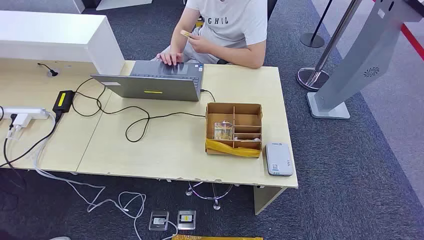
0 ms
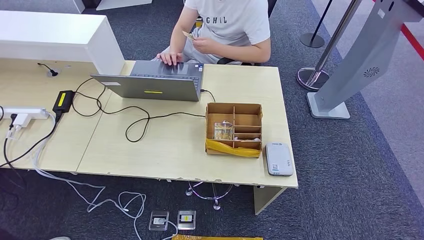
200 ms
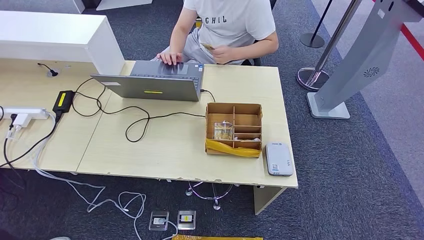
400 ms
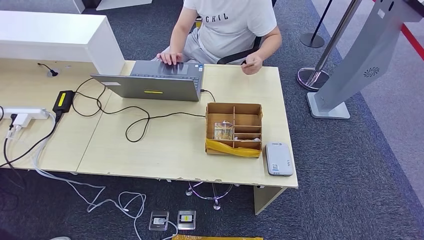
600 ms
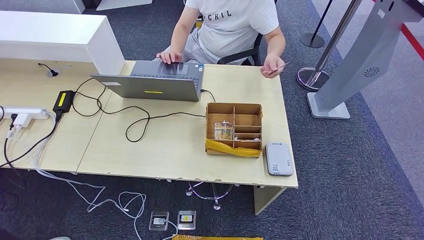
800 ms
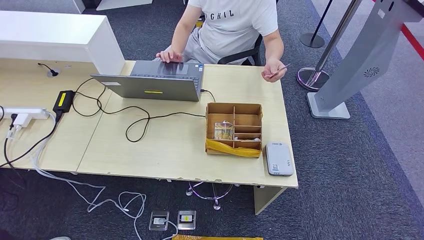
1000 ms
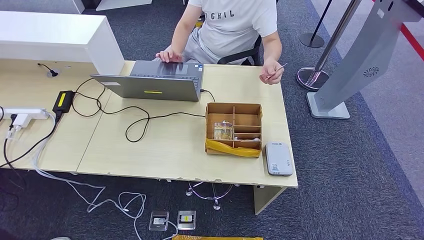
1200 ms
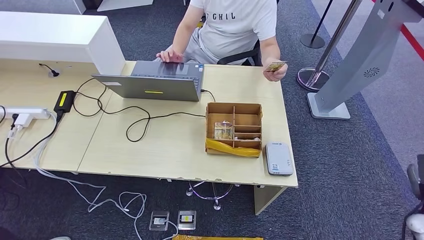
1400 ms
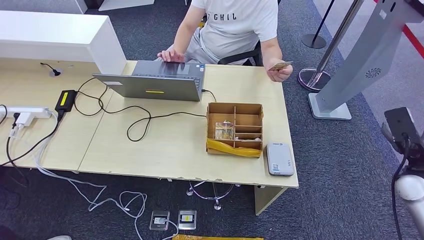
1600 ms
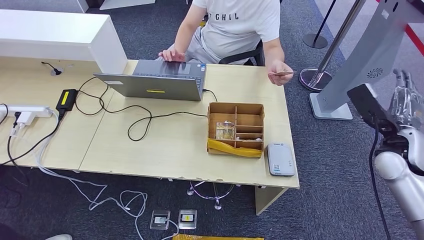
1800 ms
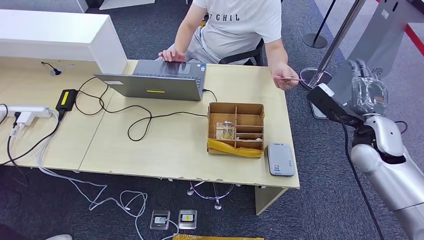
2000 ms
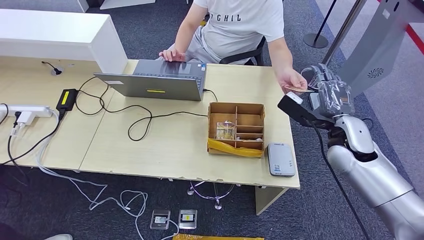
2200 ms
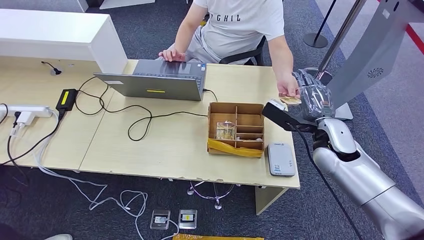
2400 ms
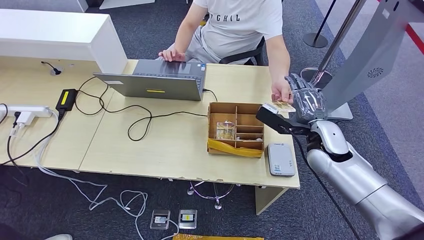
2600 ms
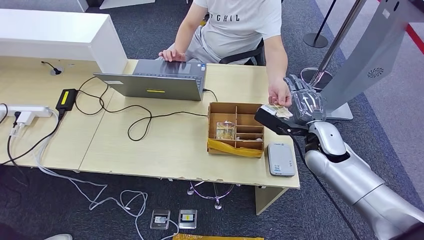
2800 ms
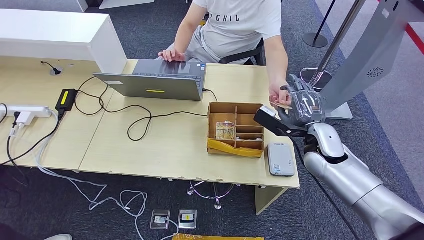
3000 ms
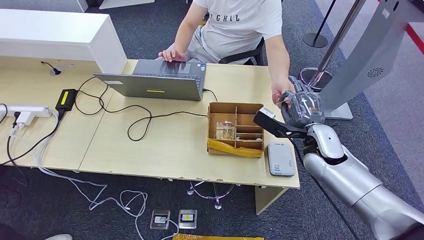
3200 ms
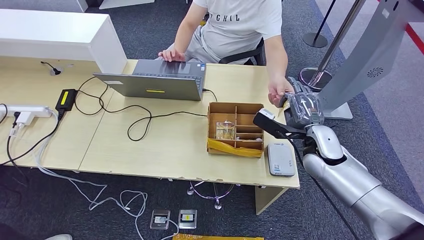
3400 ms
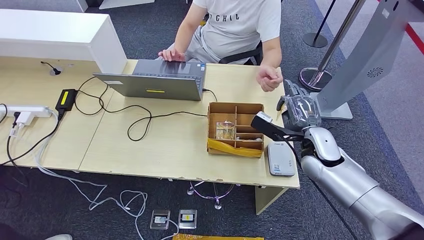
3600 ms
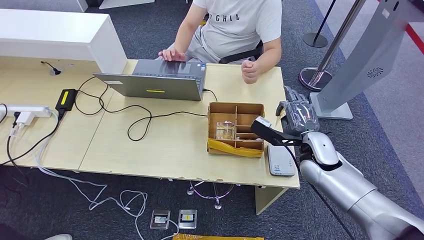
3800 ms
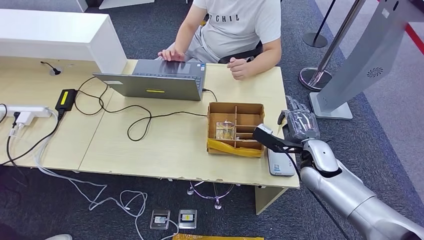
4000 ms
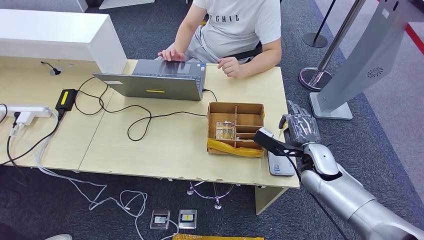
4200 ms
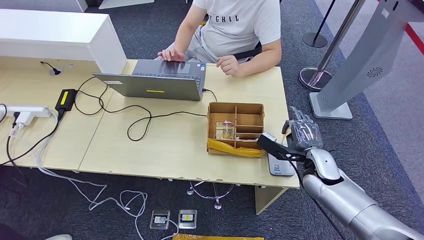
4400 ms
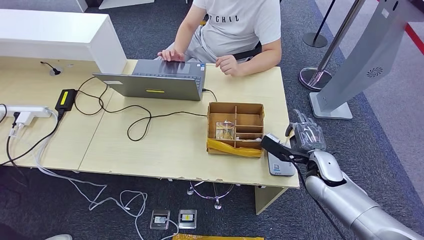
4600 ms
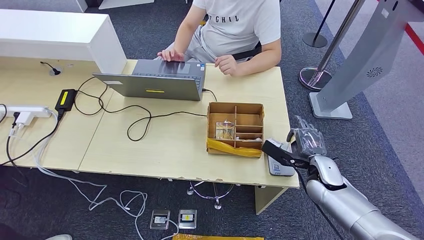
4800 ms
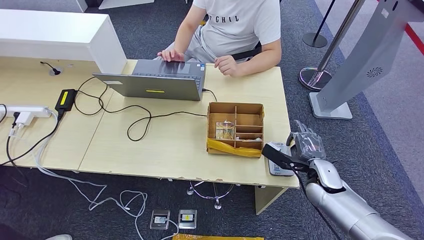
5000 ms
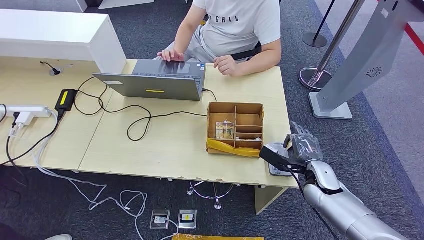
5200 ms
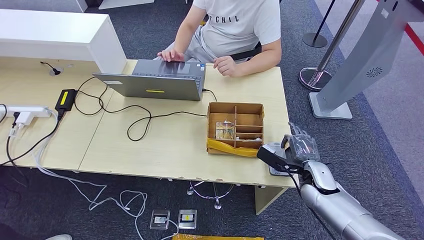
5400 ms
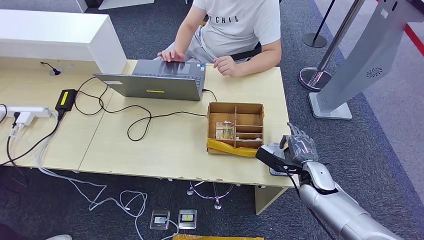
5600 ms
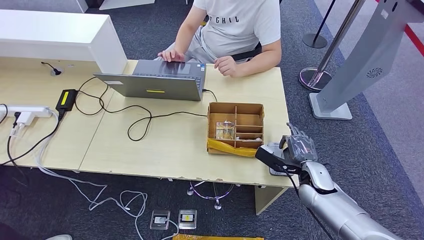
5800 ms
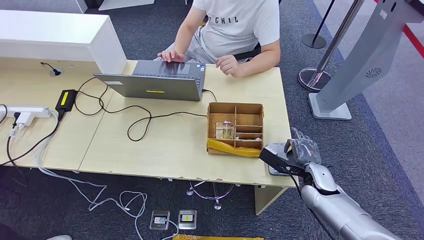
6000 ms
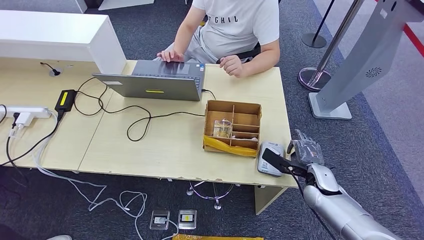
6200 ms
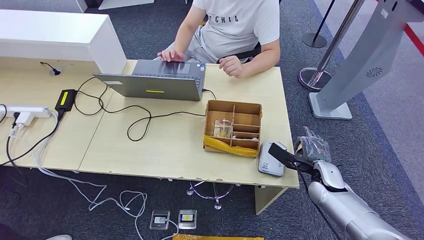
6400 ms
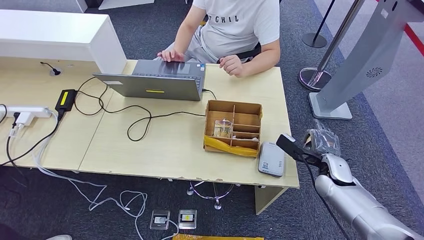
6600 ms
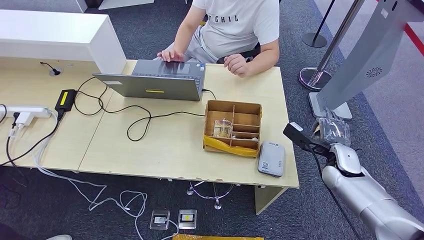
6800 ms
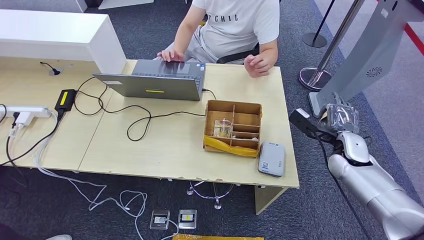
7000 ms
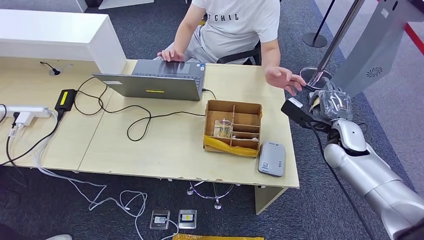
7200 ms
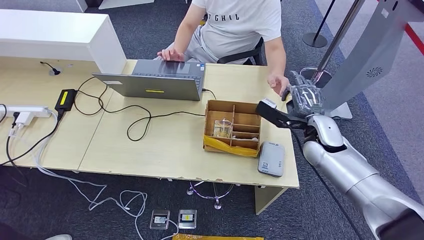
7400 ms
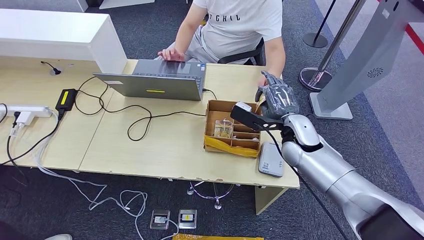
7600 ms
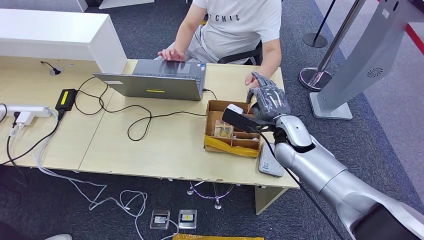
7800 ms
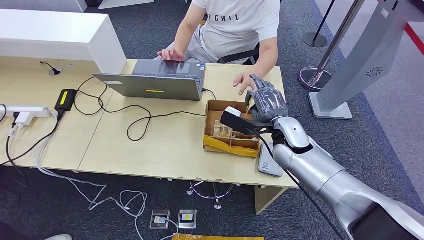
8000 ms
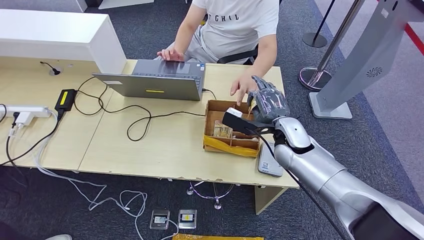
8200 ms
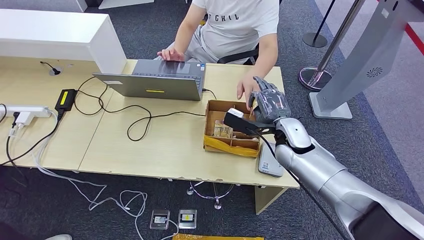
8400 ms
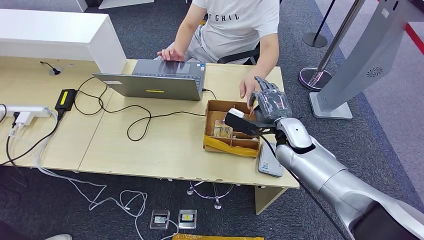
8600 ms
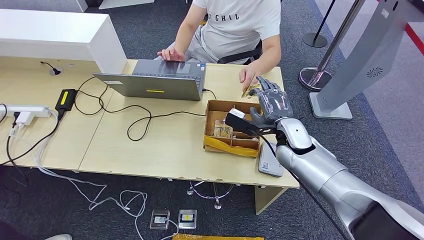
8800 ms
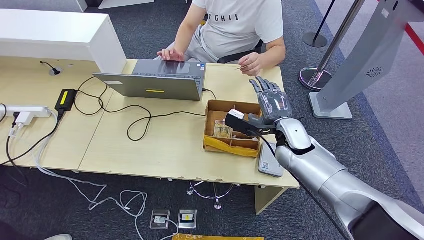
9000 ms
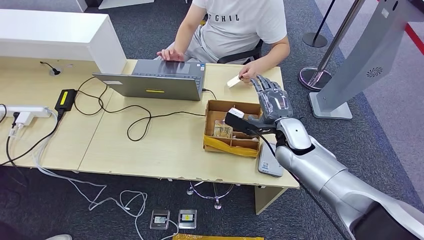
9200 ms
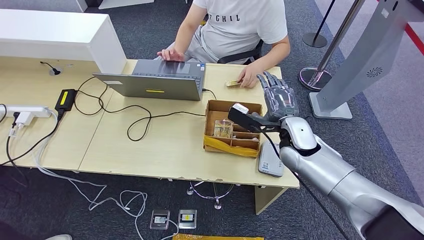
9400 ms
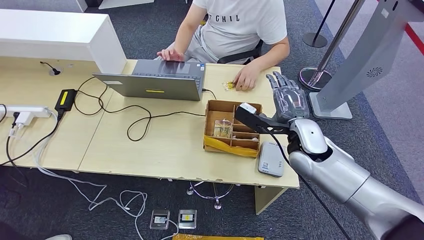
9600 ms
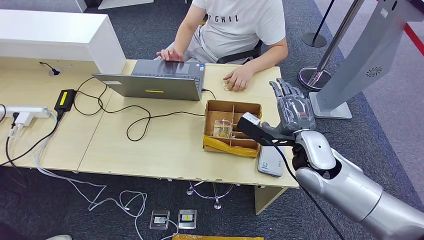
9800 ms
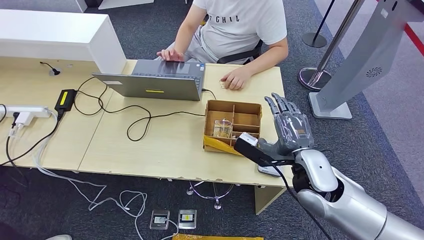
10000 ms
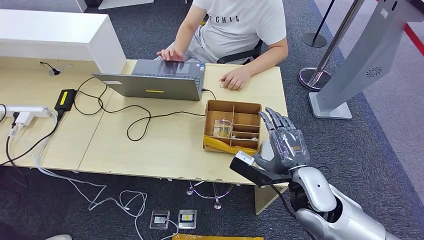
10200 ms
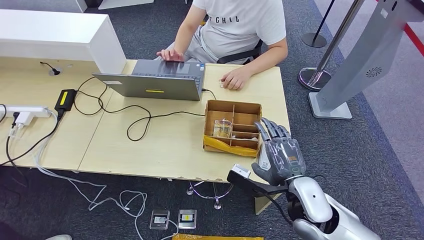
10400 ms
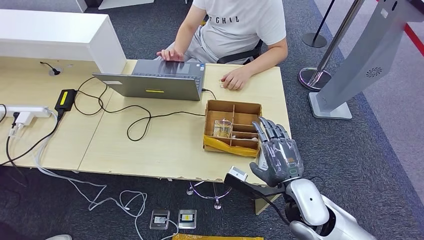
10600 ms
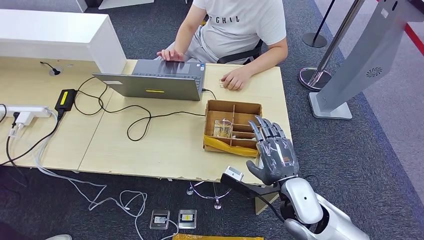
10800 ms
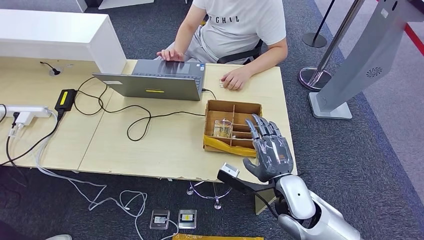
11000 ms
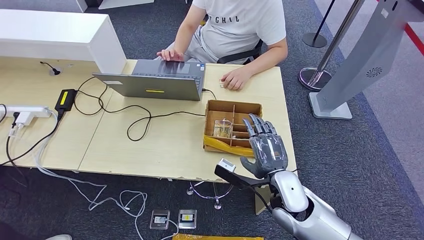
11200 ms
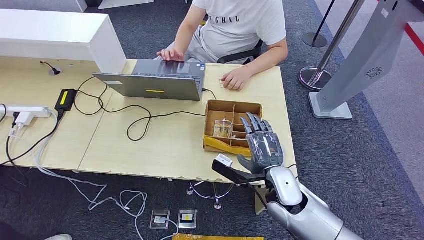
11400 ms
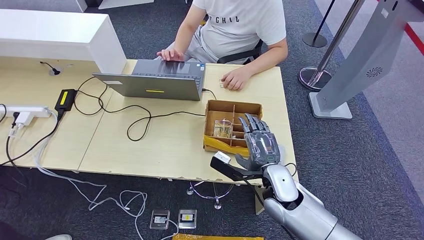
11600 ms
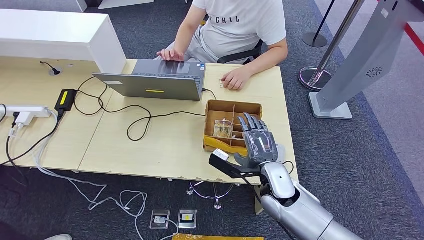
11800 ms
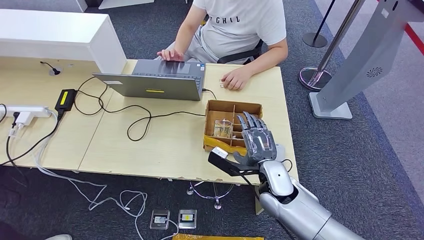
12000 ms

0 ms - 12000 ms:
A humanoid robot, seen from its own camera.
Step, 0 ms - 3800 ms: Take the ID card from the person's hand.
Step, 4000 ms - 6600 ms: Place the ID card on the card reader.
Step, 6800 ms - 8800 ms: Hand the ID card to the person.
1600 ms - 3000 ms: The right hand goes approximately 25 cm to the left.
3000 ms - 4400 ms: The right hand travels downward by about 5 cm.
4400 ms - 6000 ms: The right hand moves downward, some 5 cm.
6000 ms - 7600 ms: The right hand moves upward, to the left and forward, approximately 15 cm.
7600 ms - 9000 ms: The hands move only a little.
9000 ms - 10400 ms: The right hand moves backward, approximately 15 cm.
10400 ms - 12000 ms: The right hand shifts some 10 cm to the left and forward.

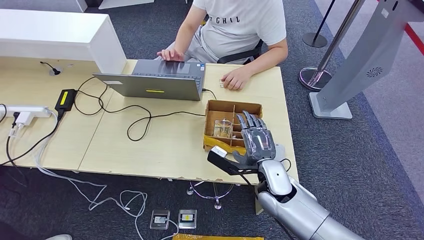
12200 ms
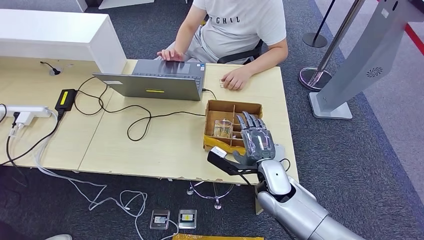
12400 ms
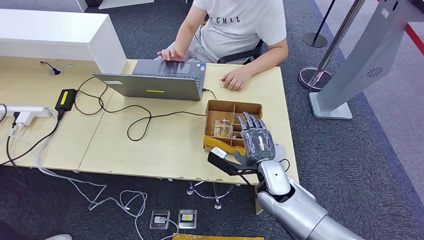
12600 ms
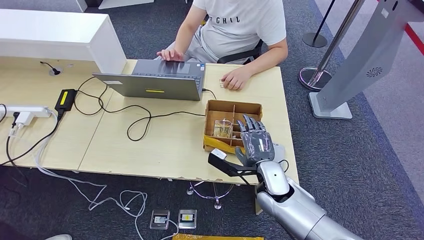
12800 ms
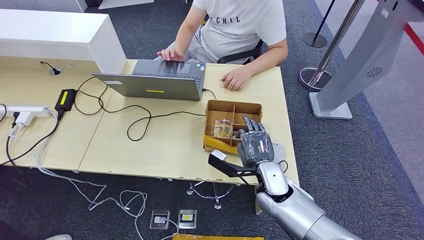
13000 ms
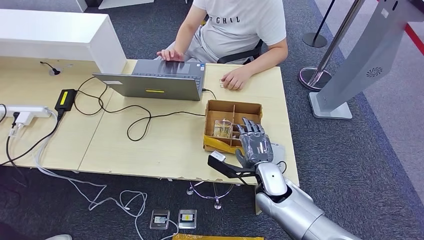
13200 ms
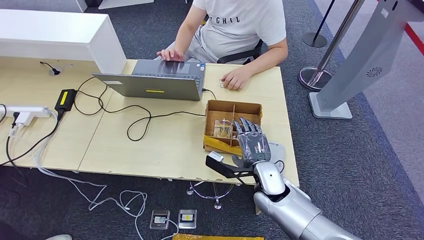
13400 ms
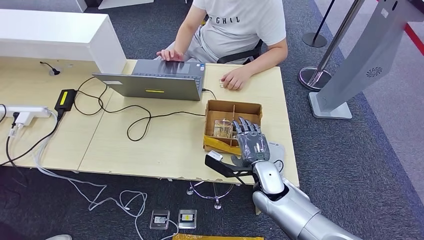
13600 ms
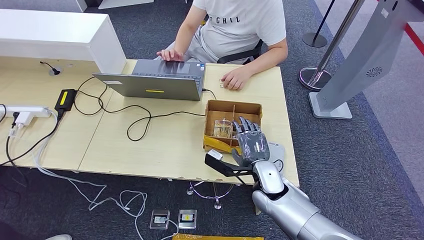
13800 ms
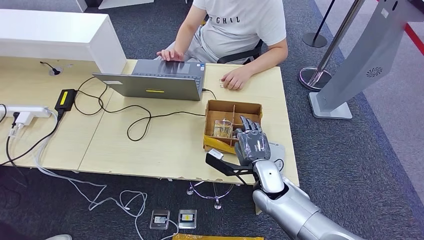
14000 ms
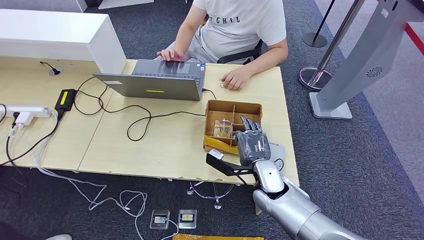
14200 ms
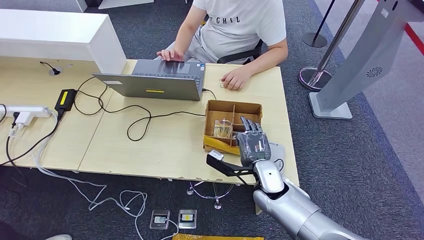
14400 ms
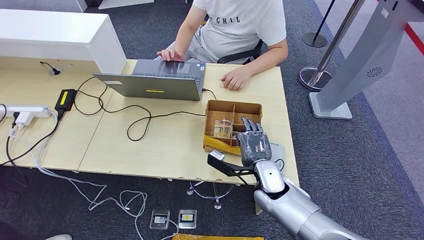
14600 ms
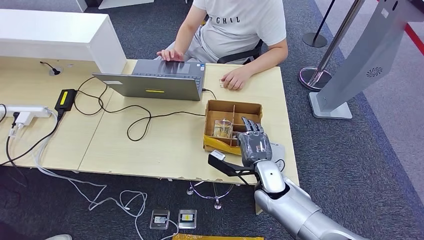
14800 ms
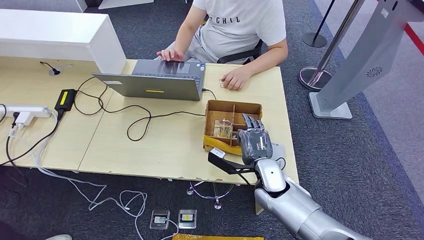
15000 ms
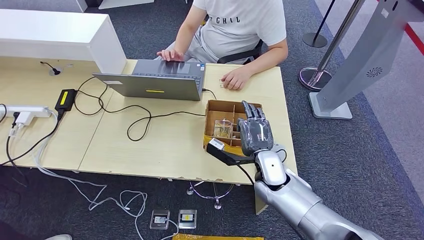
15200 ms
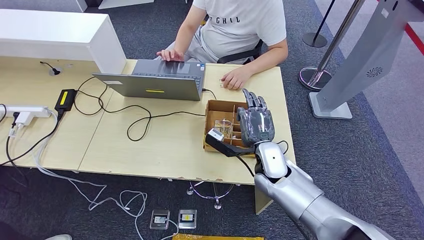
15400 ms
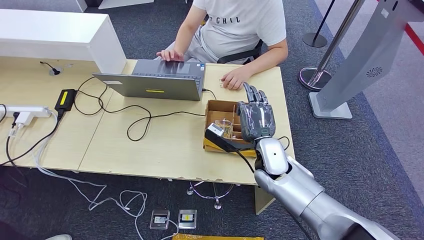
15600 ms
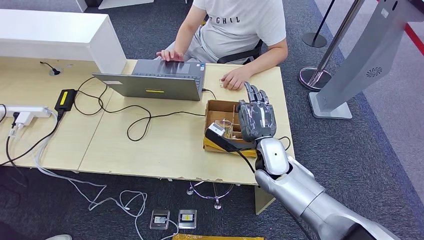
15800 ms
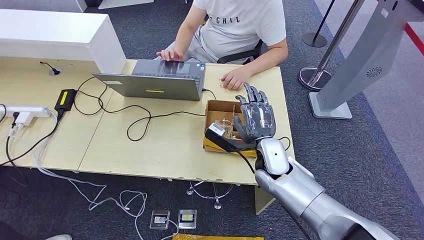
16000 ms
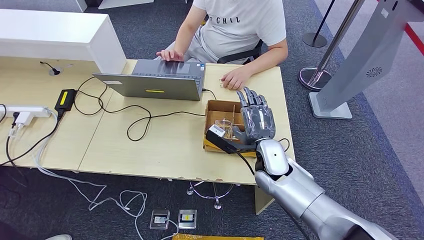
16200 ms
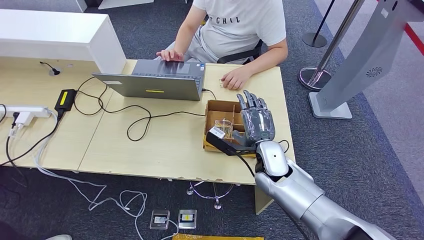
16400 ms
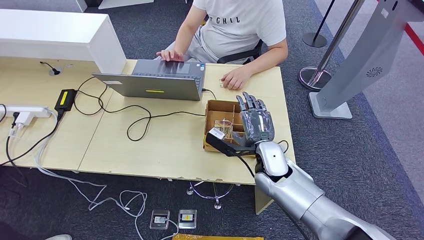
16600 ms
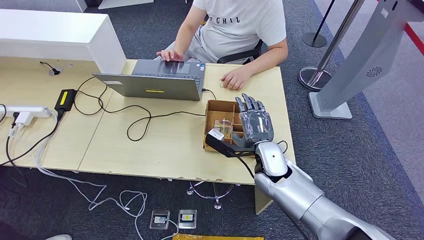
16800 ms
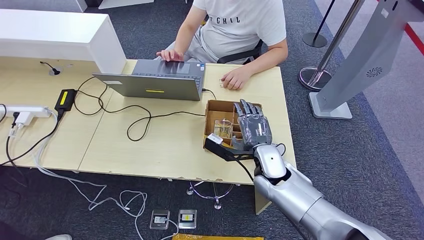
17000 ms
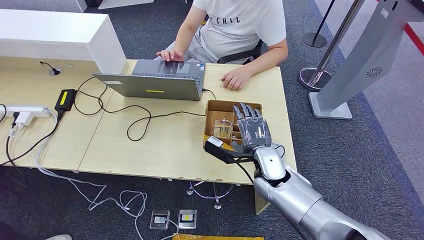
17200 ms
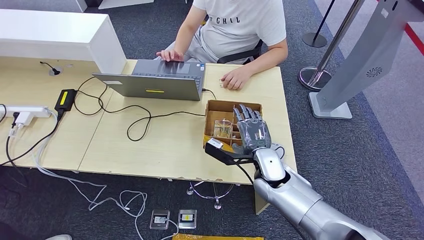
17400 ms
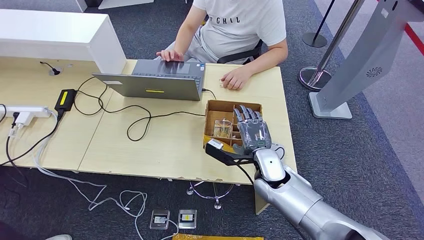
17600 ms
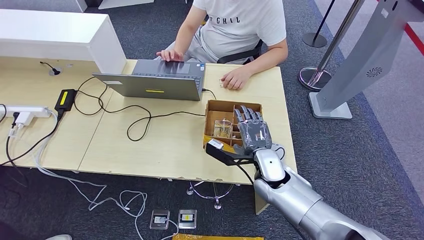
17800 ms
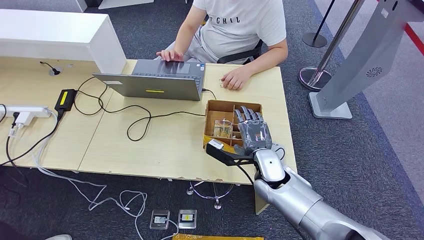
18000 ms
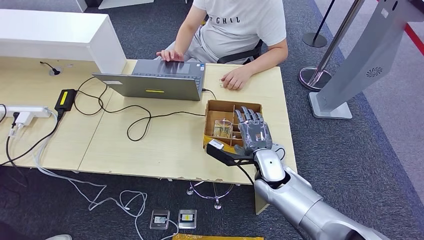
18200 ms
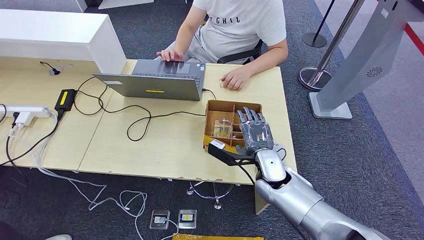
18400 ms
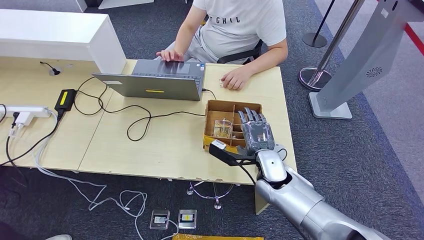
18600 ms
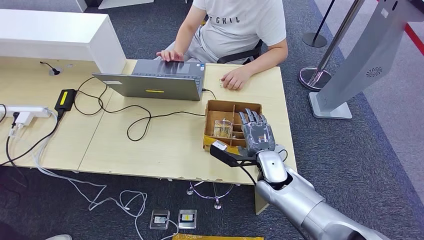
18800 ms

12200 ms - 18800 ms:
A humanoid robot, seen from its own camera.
Step, 12200 ms - 15800 ms: Pick up the room key from the key card box.
Step, 16000 ms - 17800 ms: Hand the room key to the person.
12200 ms - 13800 ms: The hands move only a little.
13800 ms - 15400 ms: The right hand shifts by some 5 cm.
15400 ms - 18800 ms: The hands stay close to where they were, moving slightly.
